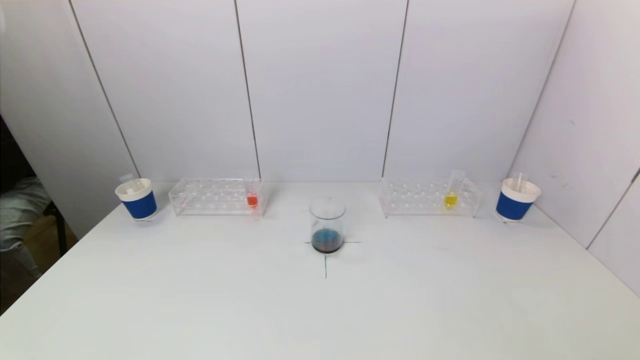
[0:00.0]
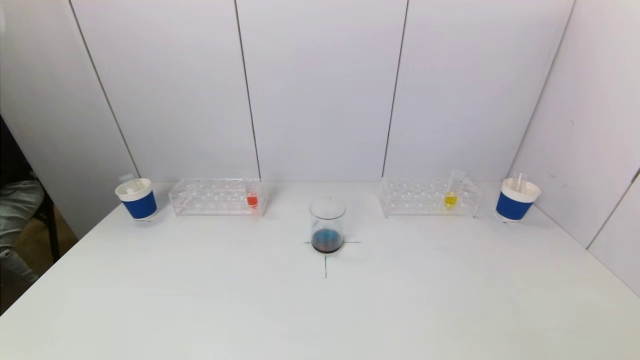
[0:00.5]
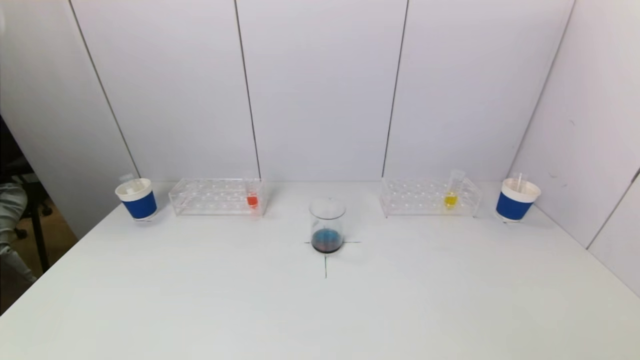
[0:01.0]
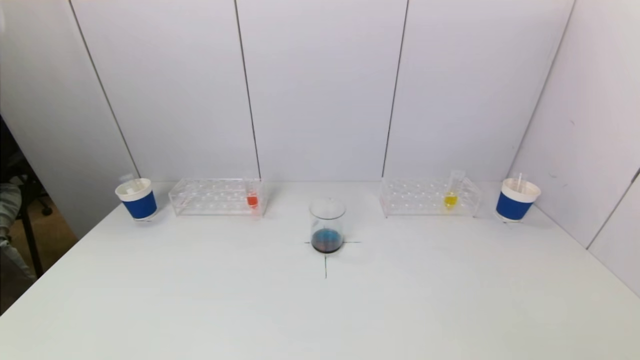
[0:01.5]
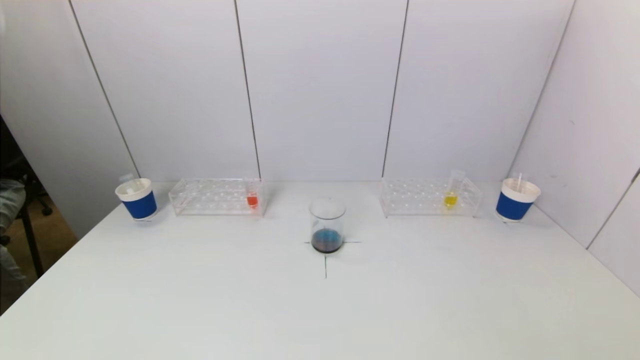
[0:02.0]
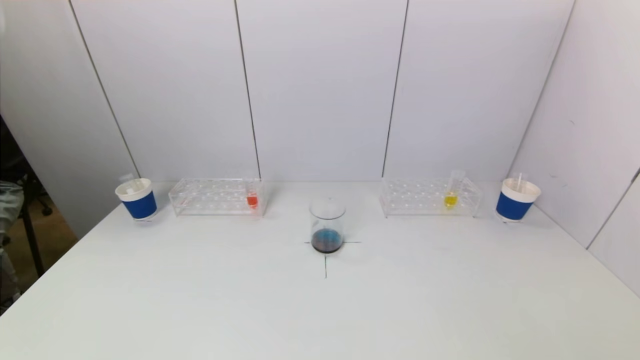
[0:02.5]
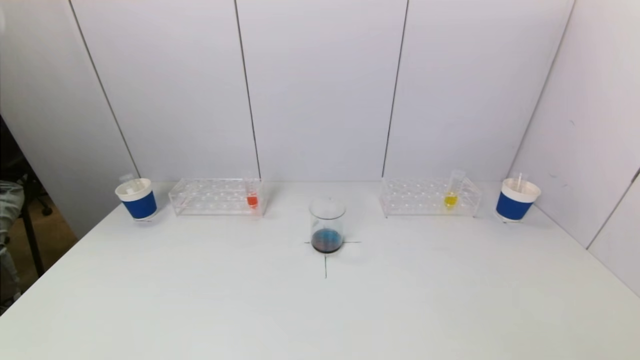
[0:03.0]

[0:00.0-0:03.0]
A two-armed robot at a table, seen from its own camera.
Task of the whole recording: pick up a test tube with pigment on left test tube rack and a test tube with pigment on right test tube rack by grippers and pour them into the beaker.
0:00.0 to 0:01.5: The grippers make only small movements.
0:01.5 to 0:03.0: Both grippers stay about where they are.
